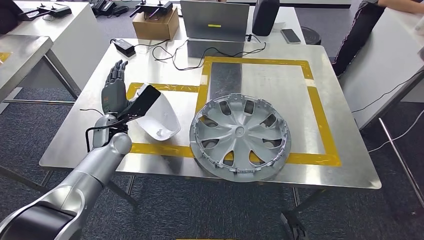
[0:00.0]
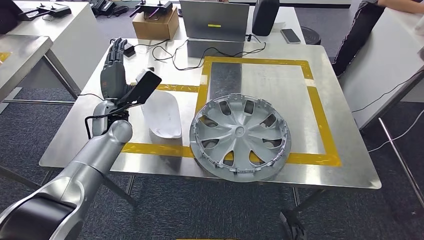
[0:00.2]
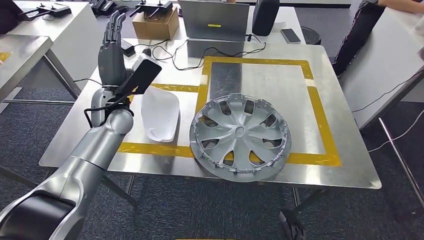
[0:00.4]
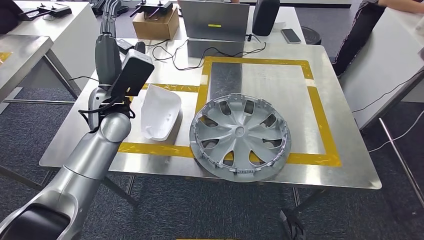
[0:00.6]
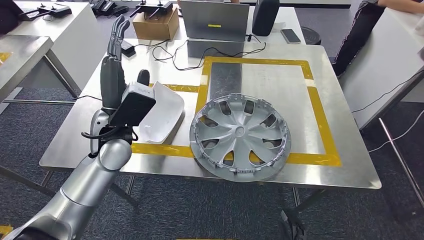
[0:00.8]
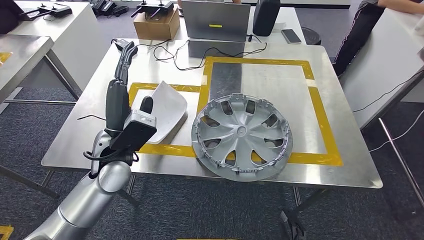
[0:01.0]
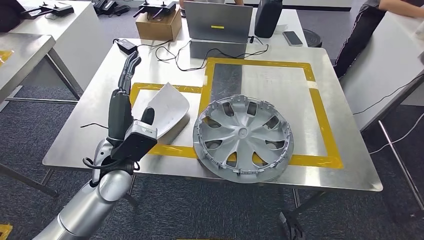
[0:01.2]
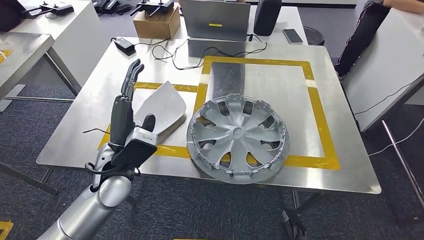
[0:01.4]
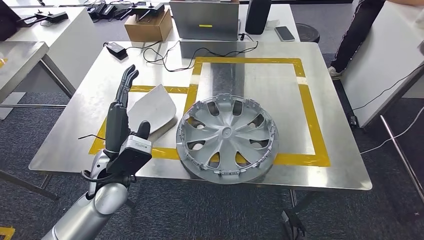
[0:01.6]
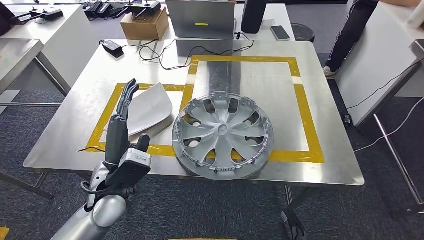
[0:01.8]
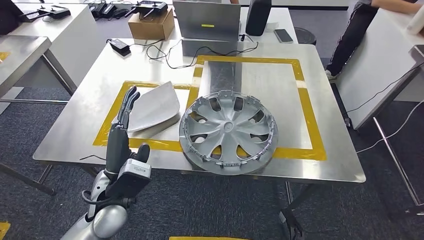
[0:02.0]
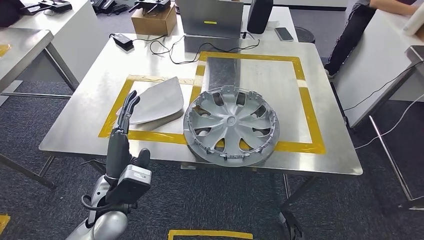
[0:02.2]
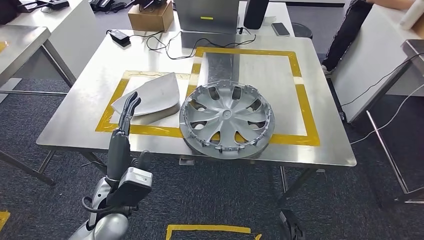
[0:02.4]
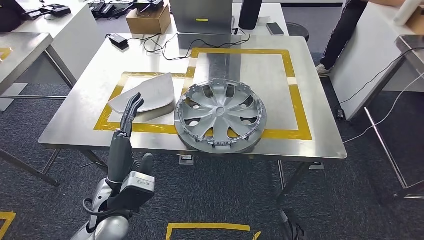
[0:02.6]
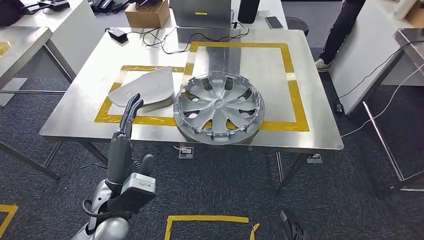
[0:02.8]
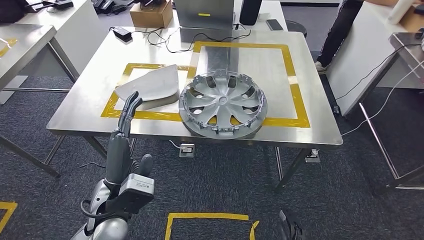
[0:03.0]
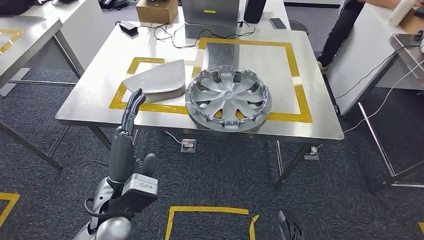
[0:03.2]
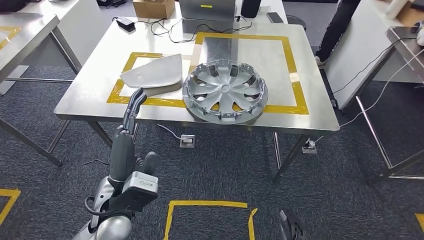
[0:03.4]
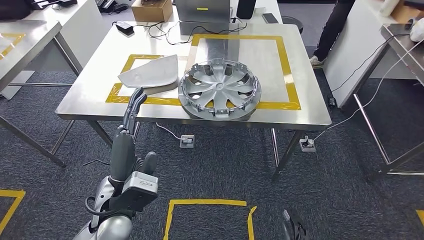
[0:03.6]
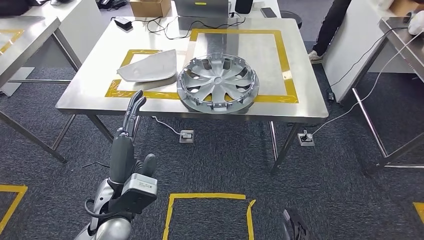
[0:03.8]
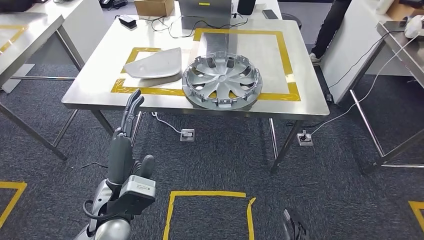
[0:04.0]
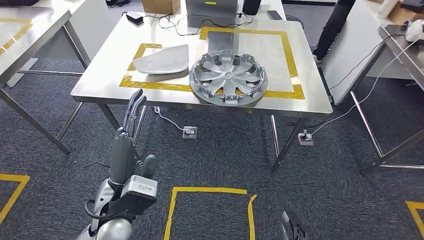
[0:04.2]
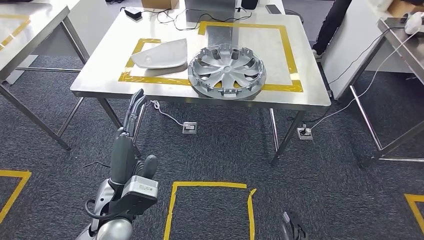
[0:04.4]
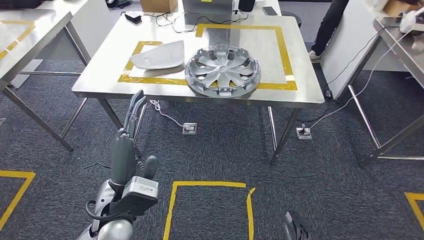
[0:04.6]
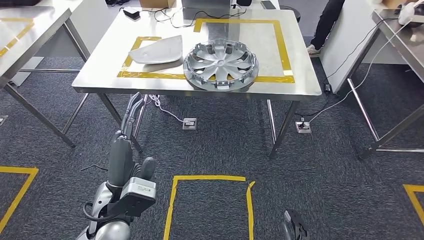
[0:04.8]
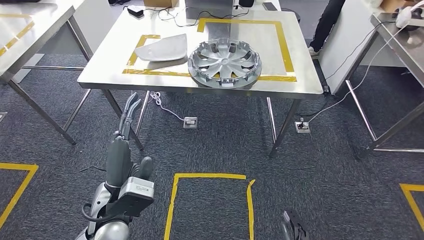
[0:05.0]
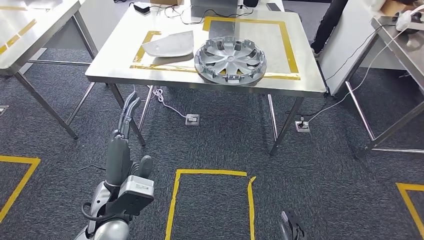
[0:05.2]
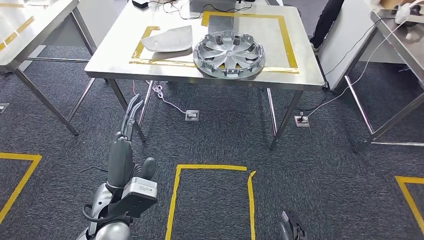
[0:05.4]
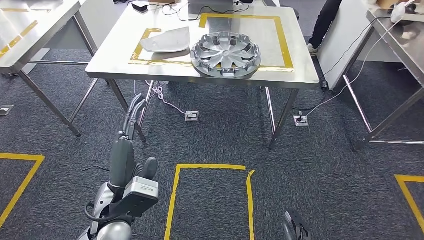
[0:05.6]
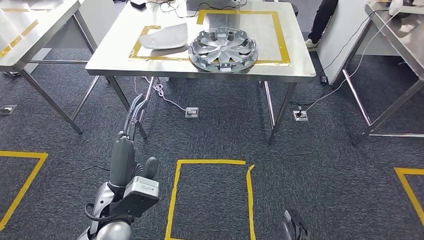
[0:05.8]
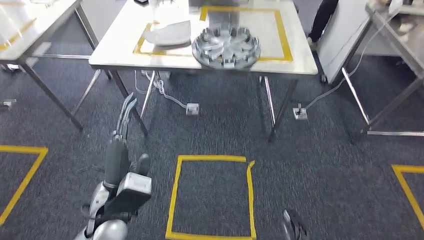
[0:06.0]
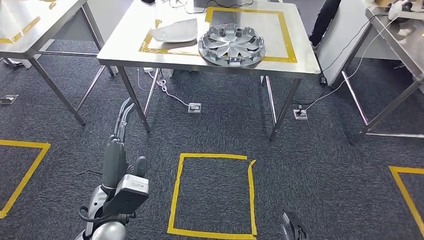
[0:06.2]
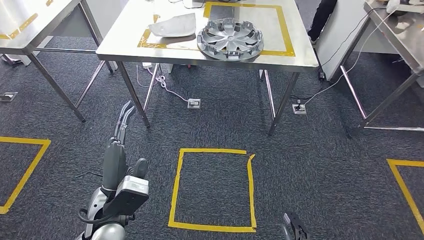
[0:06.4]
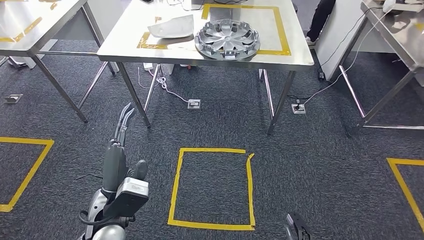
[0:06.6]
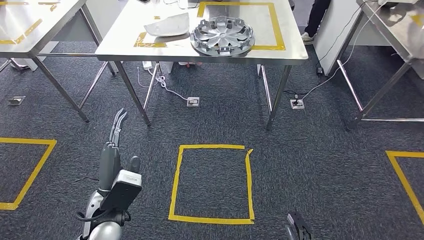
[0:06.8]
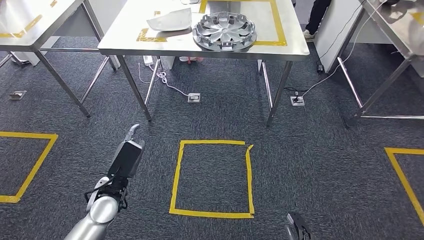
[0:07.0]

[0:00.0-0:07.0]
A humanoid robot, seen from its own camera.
Step, 0:01.0 to 0:07.0: Move to the initial position of the shelf.
